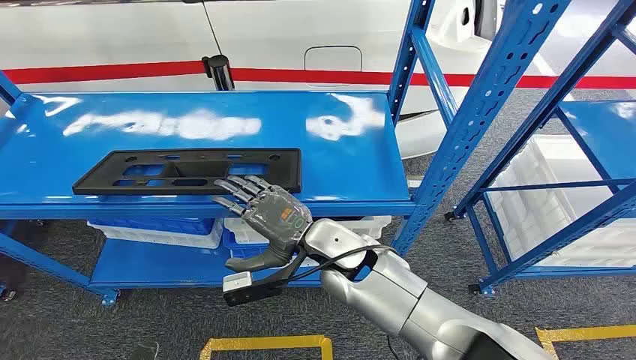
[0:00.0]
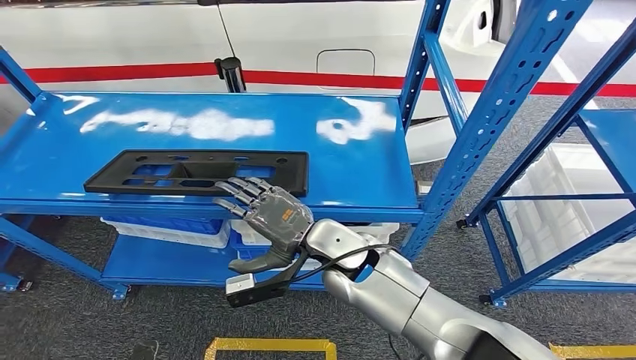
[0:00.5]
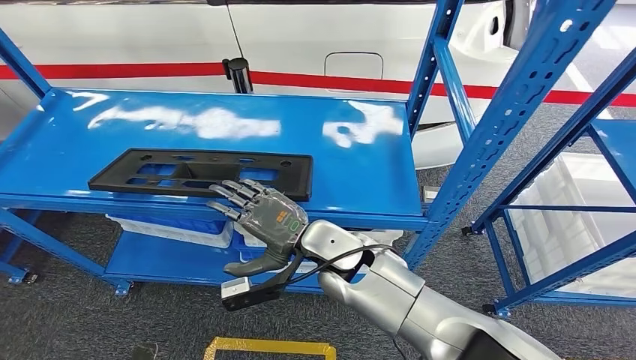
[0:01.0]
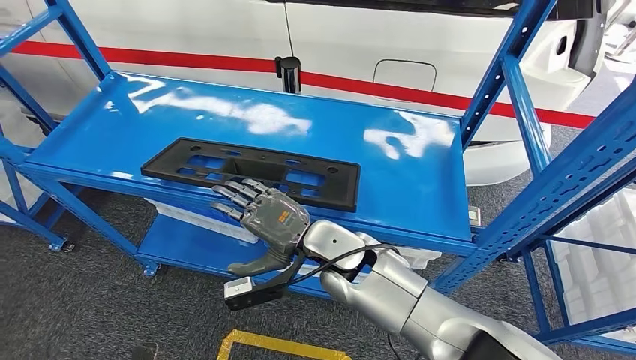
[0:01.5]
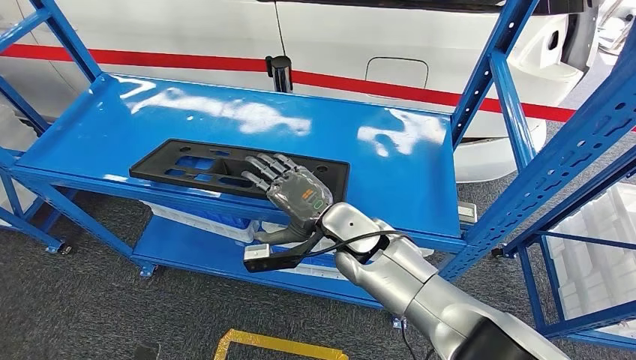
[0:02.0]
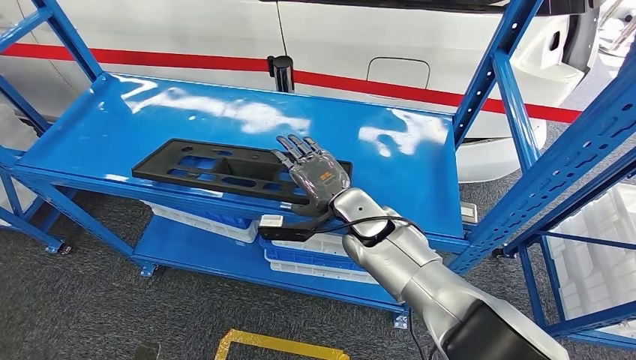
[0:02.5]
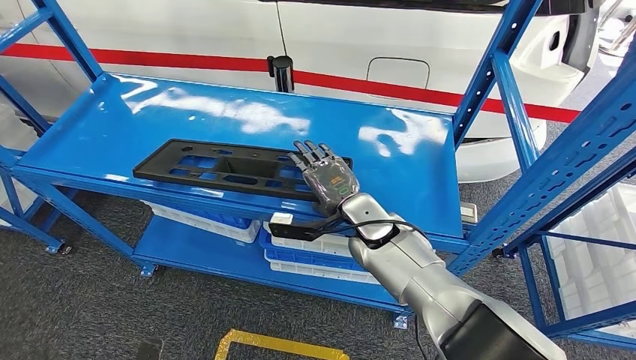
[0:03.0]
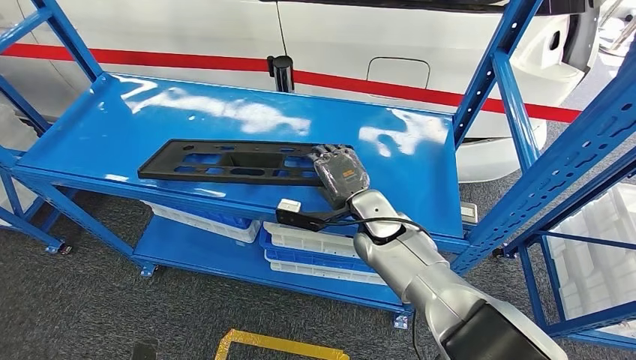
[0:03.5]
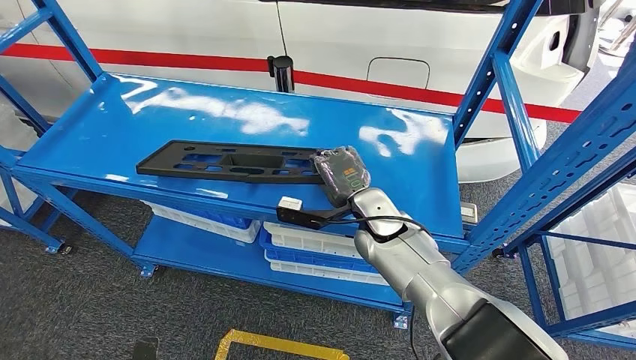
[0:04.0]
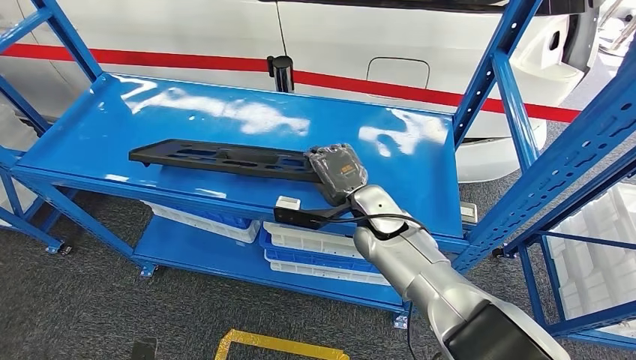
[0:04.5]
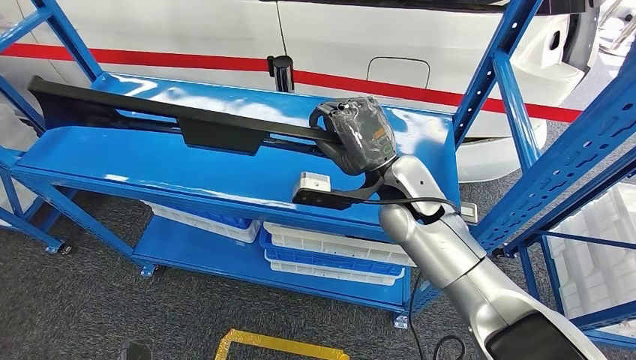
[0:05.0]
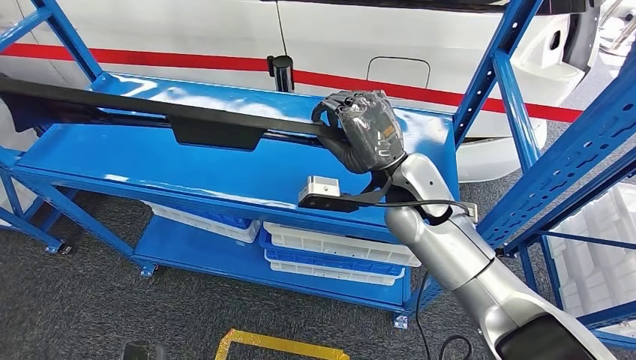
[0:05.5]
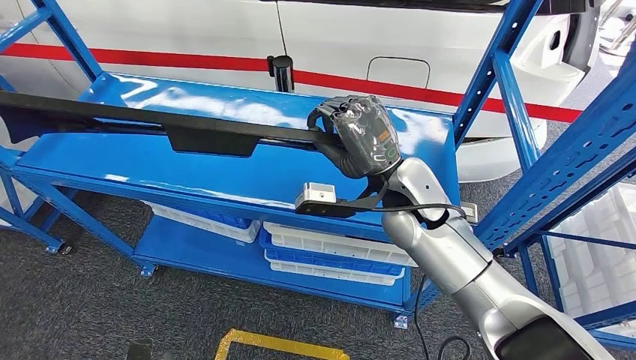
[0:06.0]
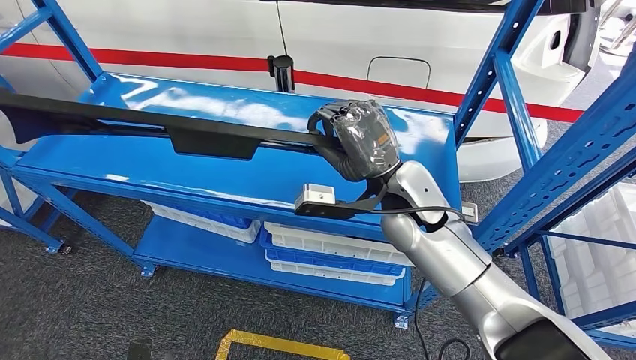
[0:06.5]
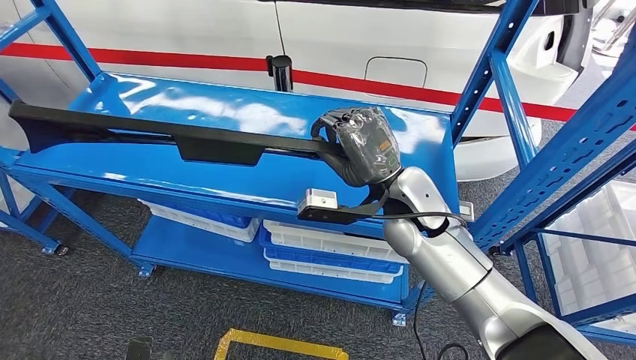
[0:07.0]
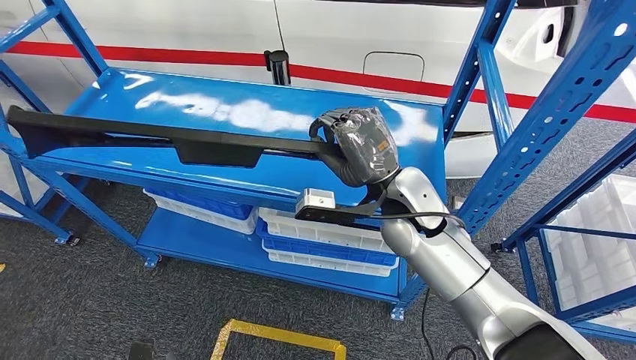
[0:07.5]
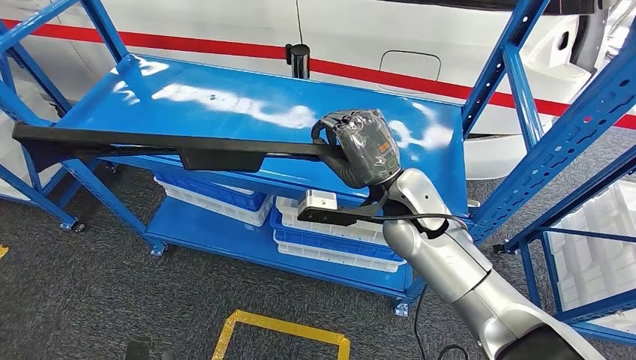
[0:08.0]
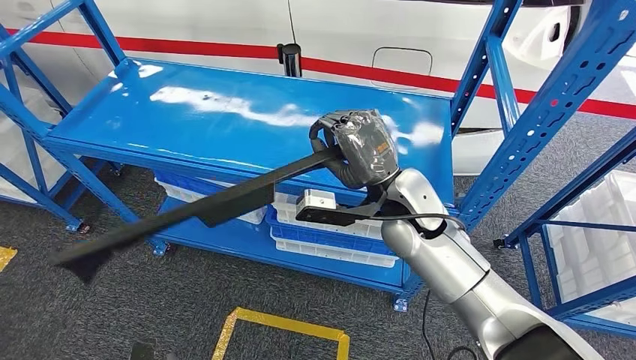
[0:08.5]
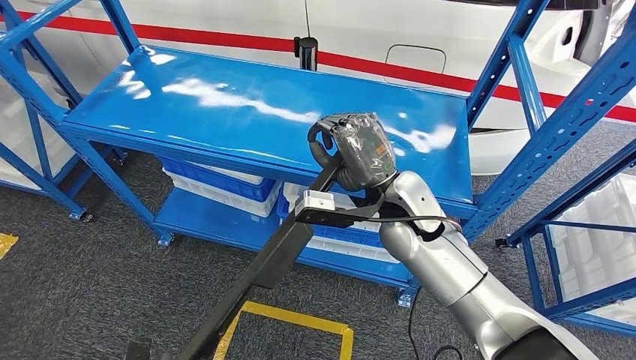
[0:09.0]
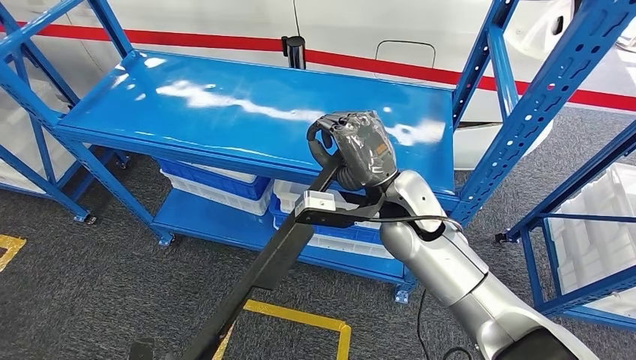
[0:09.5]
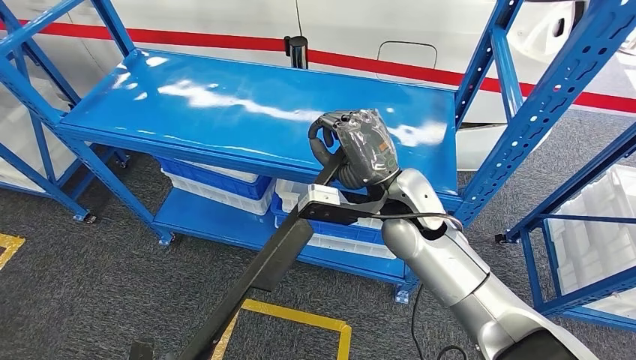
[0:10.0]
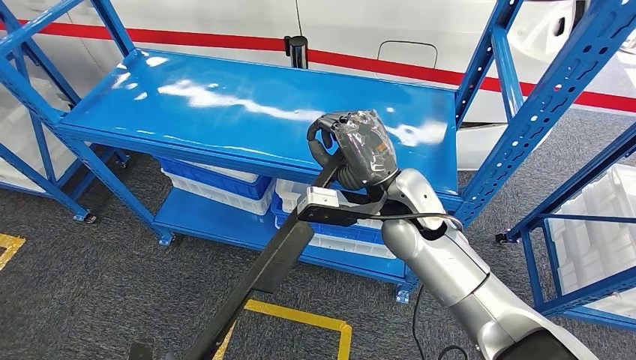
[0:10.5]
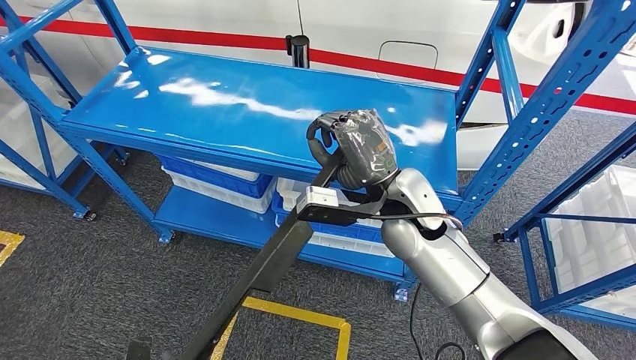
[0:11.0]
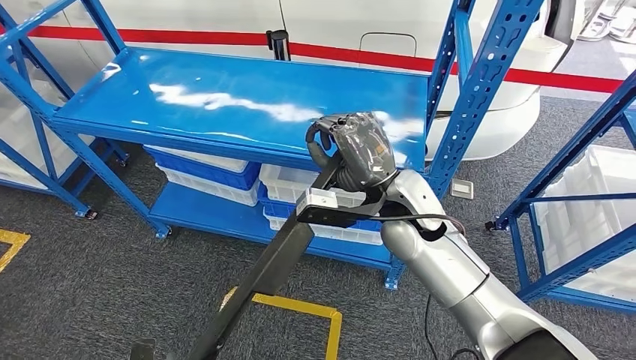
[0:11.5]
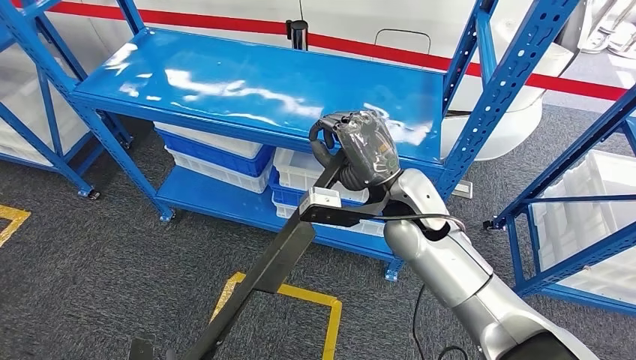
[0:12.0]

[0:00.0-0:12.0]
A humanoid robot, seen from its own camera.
Step, 0:00.0 to 0:09.0: Pick up the large material from the shelf.
0:02.0 to 0:04.0: The right hand shifts by roughly 5 cm.
0:04.0 to 0:06.0: The right hand shifts roughly 10 cm upward.

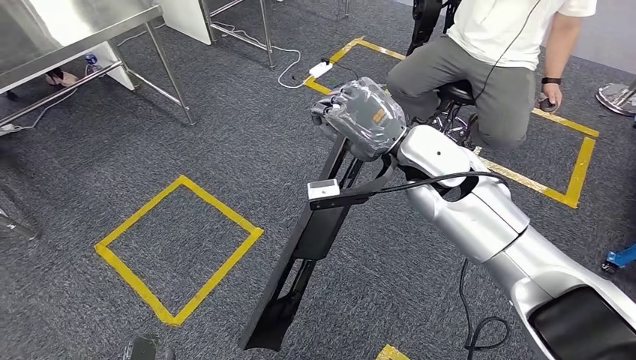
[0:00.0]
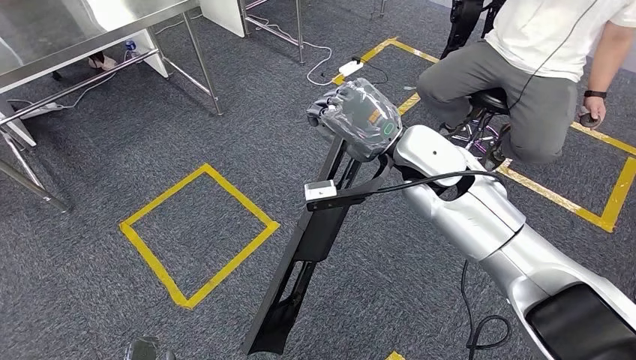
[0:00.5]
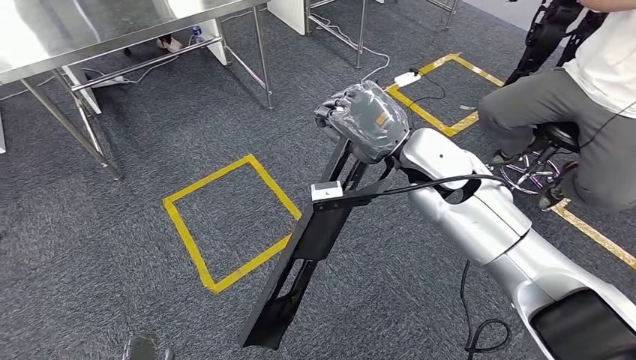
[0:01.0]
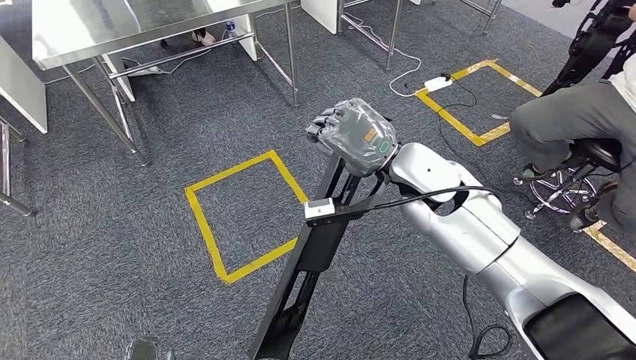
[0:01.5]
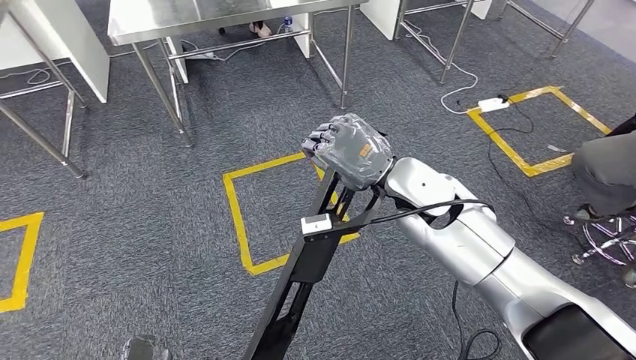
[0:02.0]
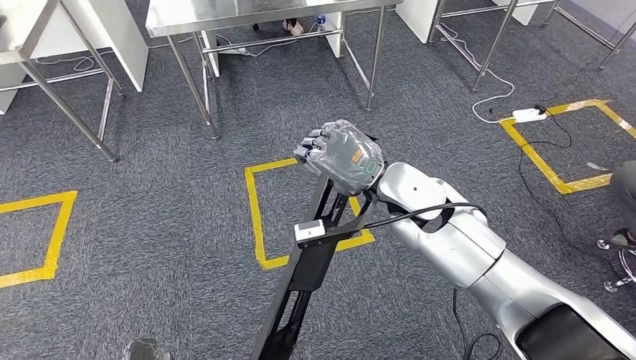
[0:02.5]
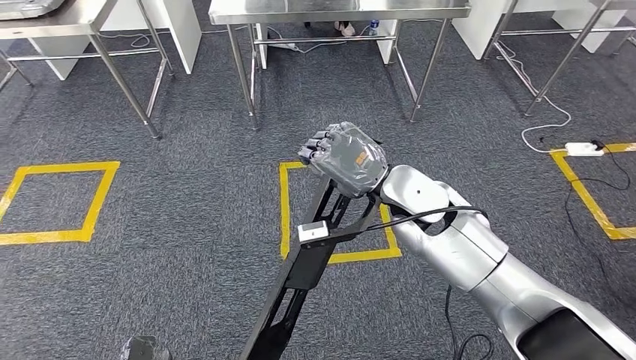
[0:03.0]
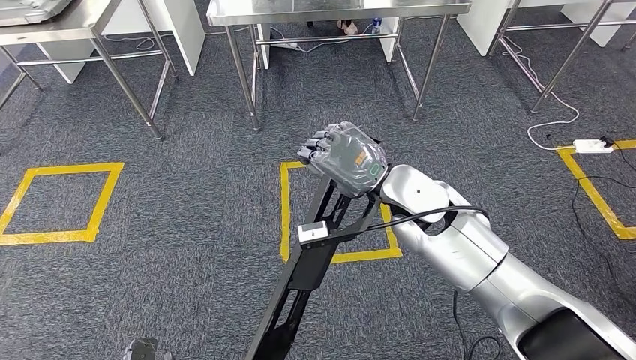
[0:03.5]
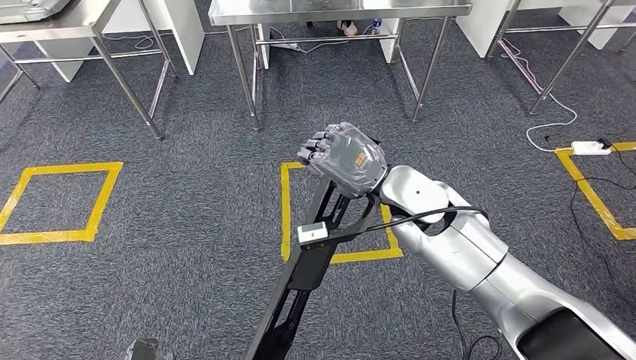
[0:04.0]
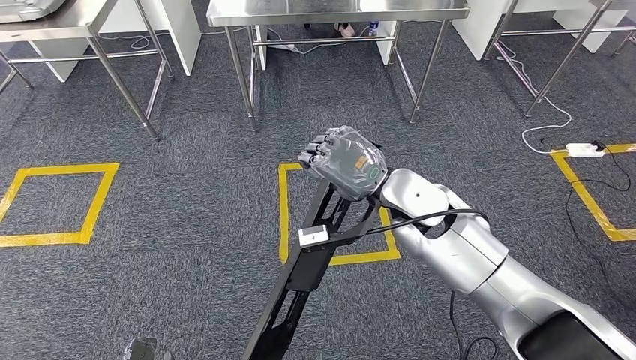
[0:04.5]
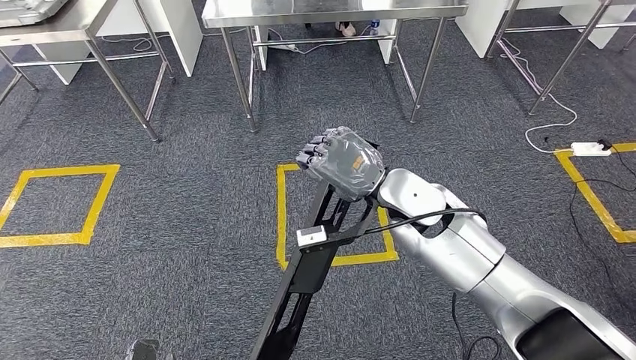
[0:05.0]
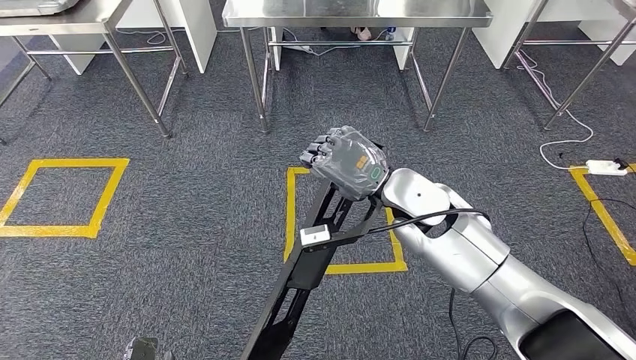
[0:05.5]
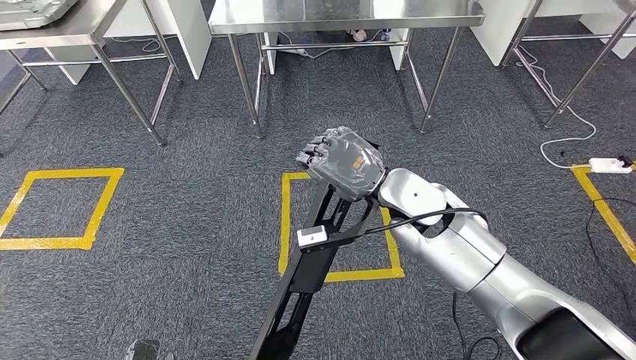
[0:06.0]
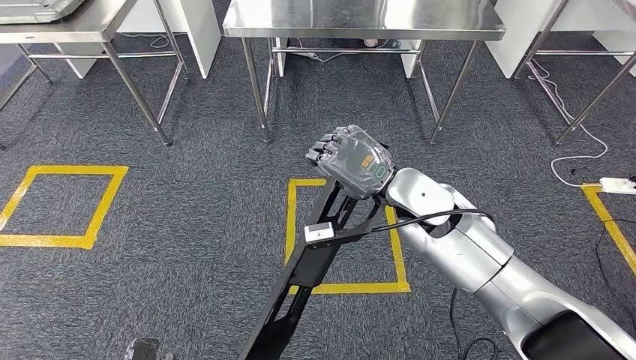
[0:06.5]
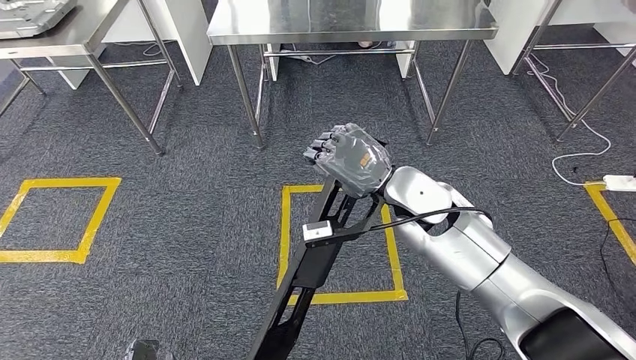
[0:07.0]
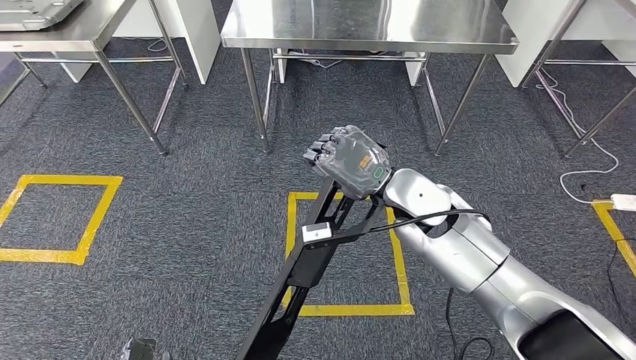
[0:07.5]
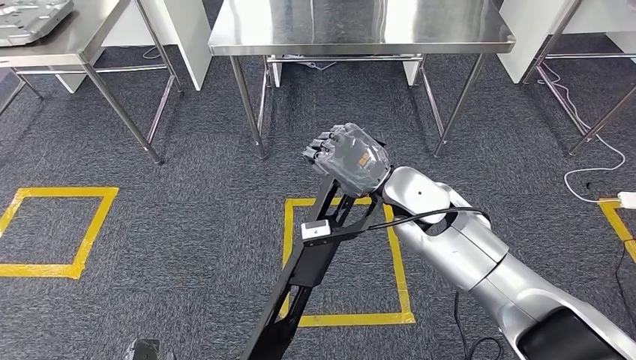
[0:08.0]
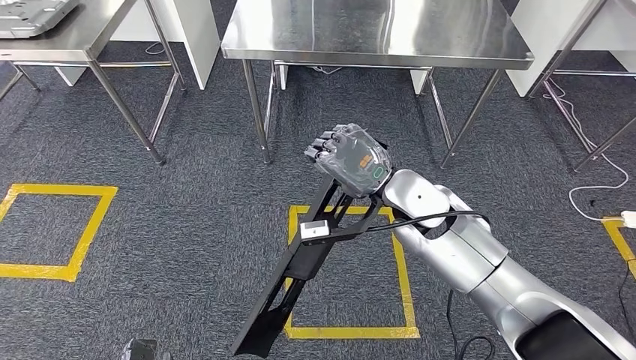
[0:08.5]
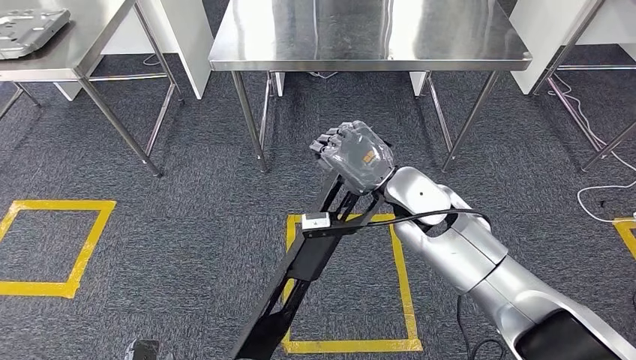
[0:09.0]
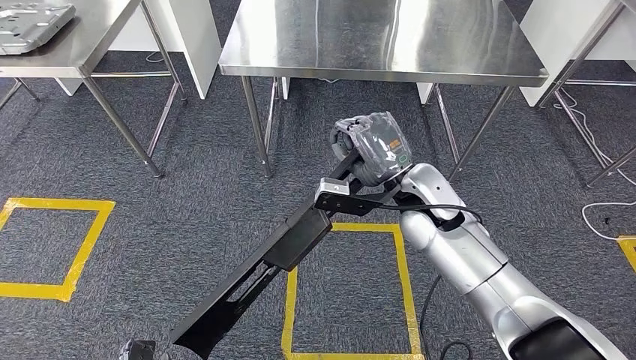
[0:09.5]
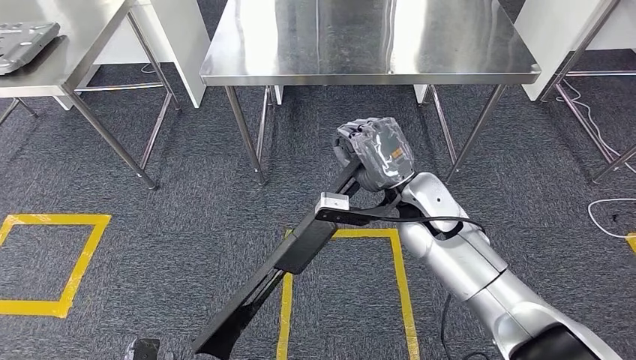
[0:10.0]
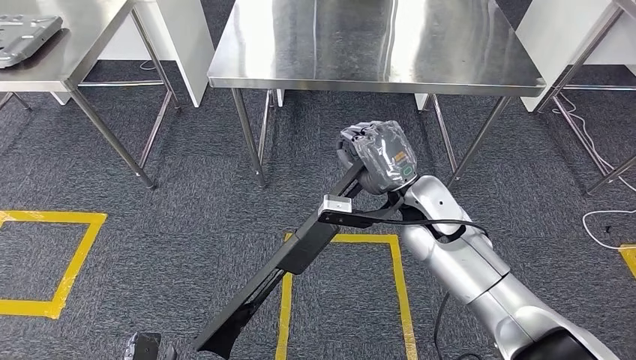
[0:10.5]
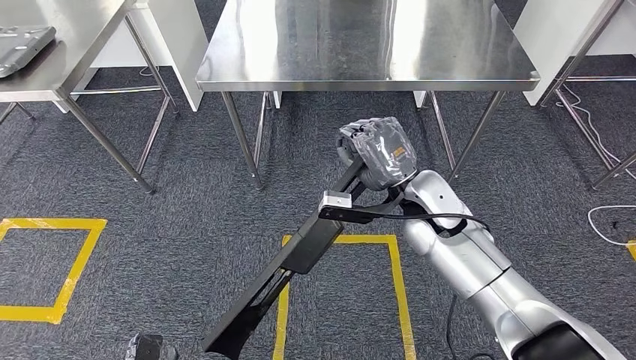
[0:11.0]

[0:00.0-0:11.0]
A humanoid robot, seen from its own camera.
Step, 0:00.0 to 0:08.5: Move the large material to the workbench.
